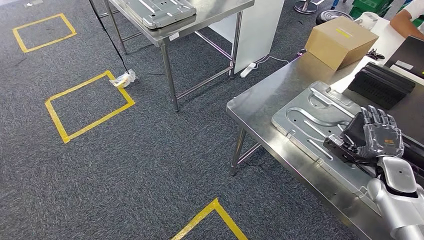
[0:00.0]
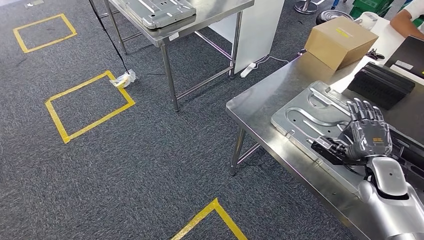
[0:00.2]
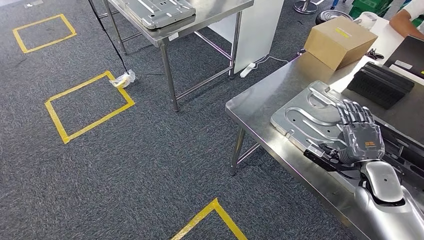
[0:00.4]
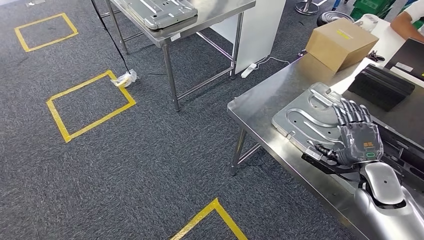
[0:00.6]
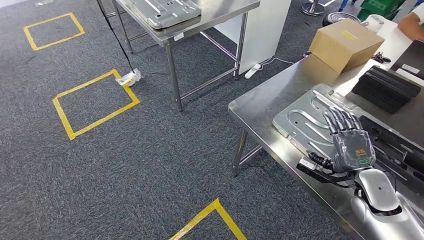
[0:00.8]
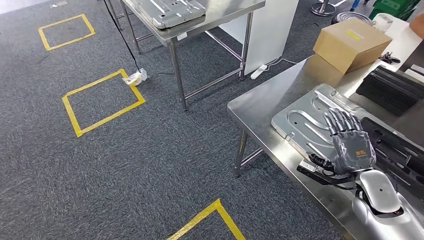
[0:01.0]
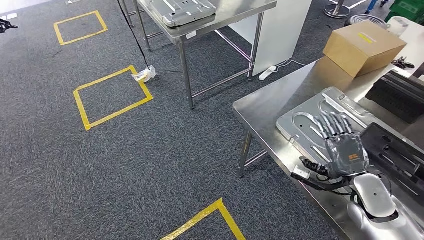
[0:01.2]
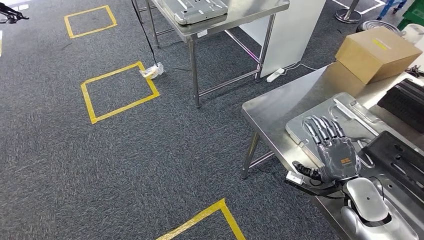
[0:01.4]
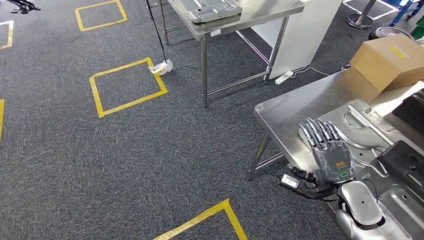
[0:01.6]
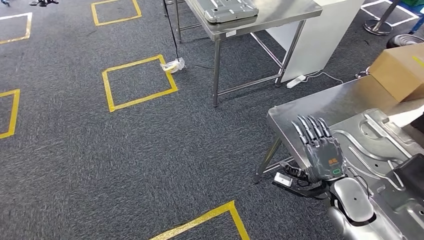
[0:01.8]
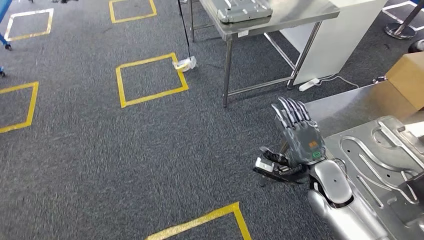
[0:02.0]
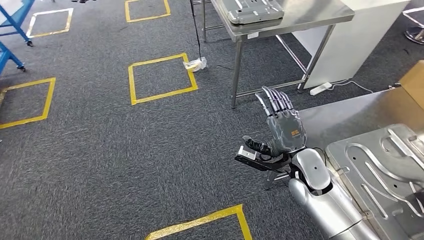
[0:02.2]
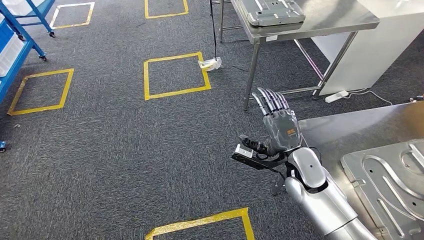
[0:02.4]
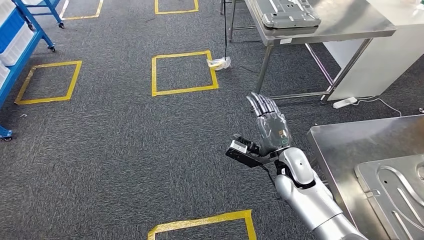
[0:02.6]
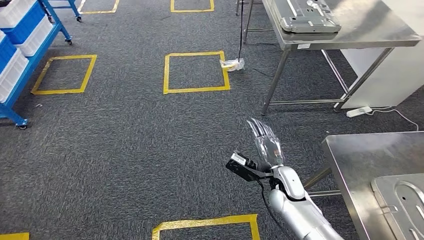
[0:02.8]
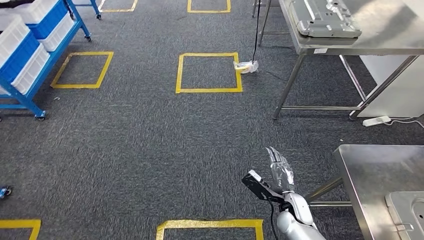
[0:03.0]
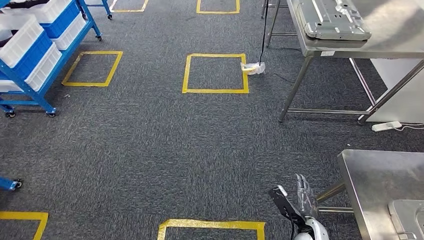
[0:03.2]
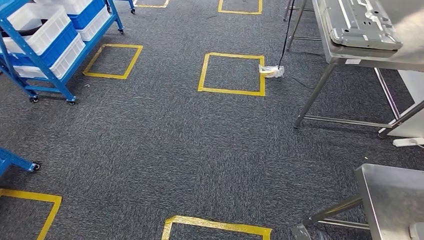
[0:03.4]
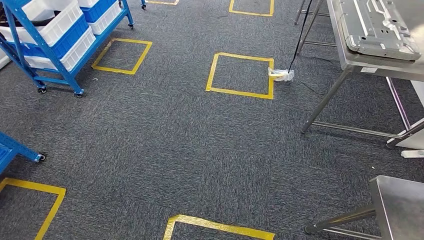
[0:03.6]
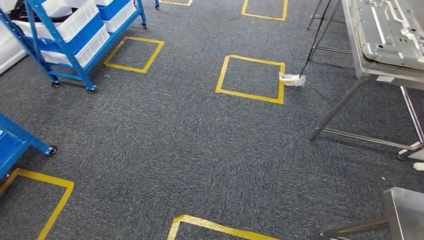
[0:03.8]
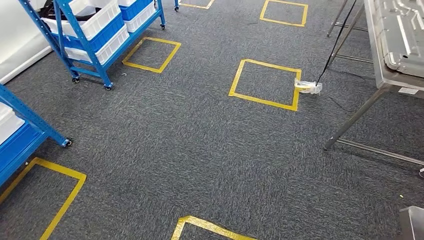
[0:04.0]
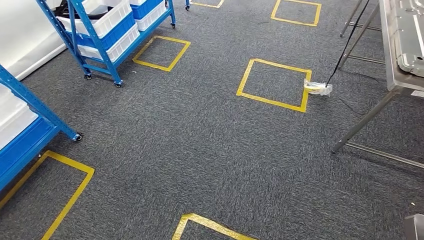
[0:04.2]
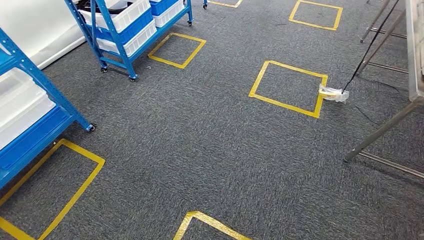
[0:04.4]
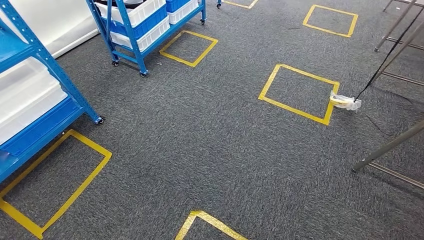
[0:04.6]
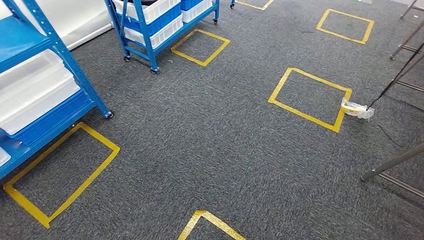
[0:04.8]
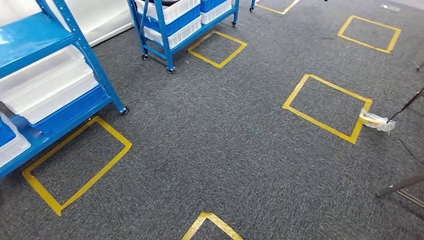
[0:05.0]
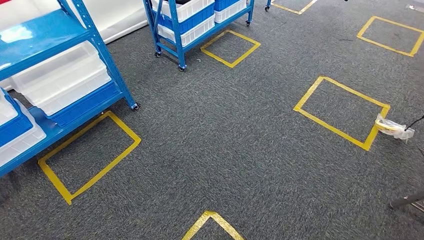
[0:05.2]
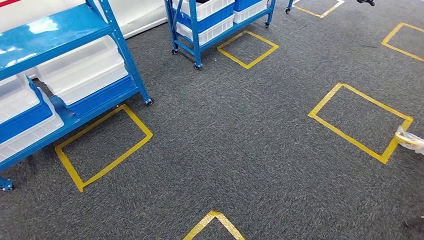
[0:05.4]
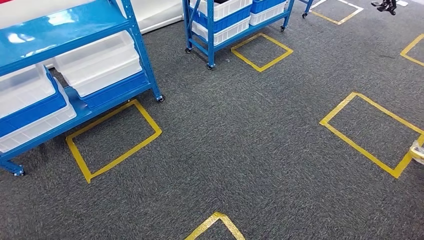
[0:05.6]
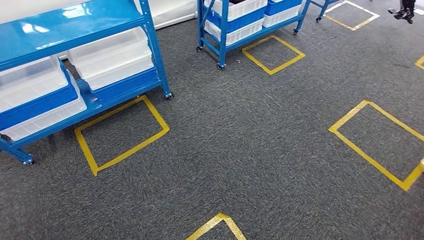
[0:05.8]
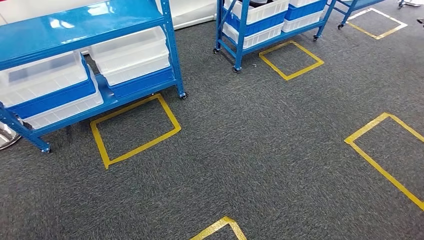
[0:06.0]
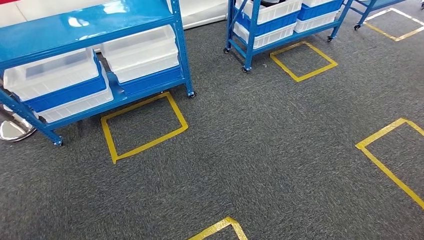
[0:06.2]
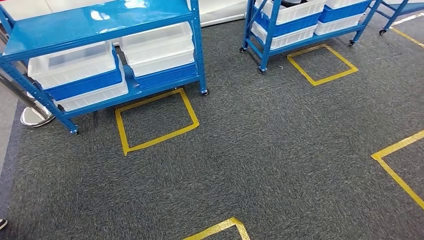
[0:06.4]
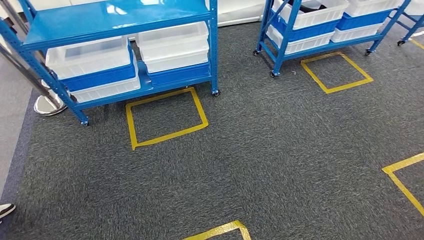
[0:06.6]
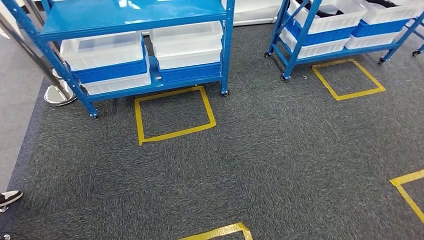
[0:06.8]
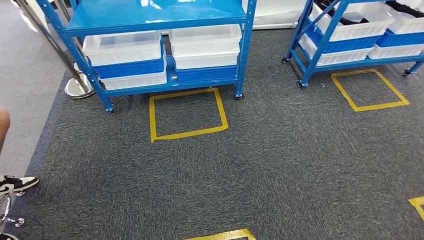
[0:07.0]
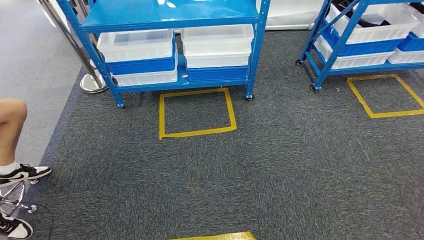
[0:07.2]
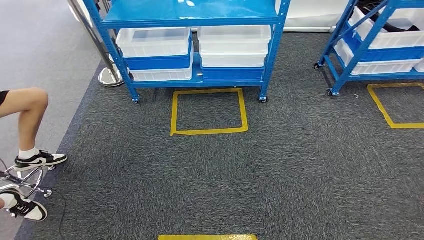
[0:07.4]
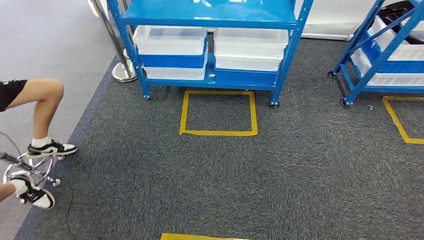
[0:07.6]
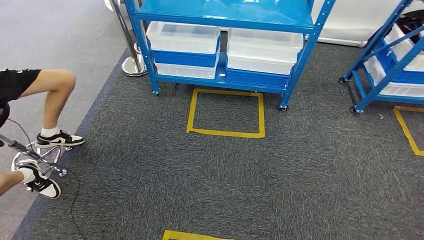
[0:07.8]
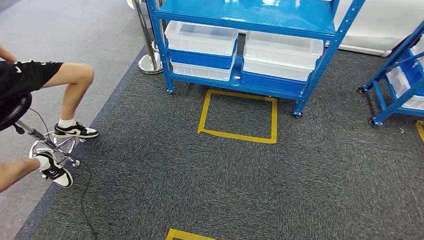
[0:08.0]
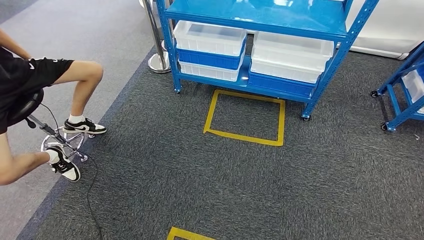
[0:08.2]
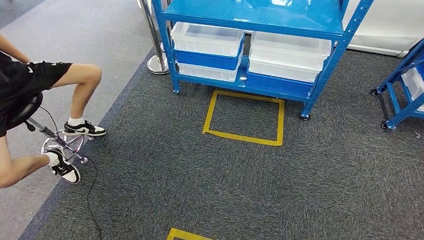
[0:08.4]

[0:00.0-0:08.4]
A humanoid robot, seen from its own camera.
Step, 0:00.0 to 0:02.6: Insert the large material into the corresponding slot on the workbench.
Step, 0:03.6 to 0:08.4: Move to the initial position of the shelf.
